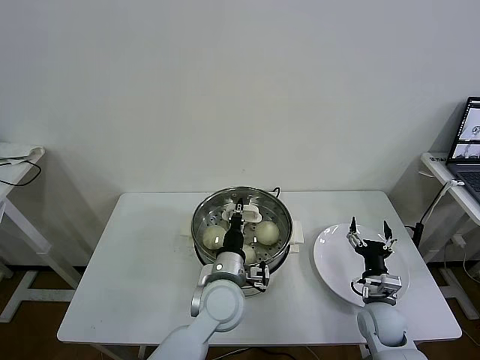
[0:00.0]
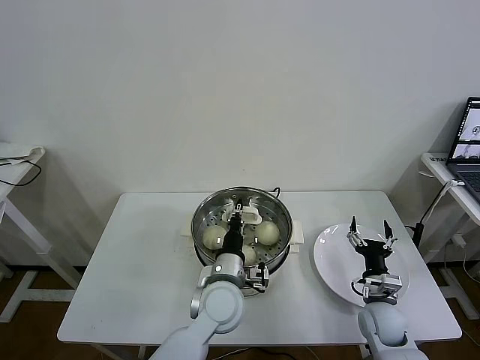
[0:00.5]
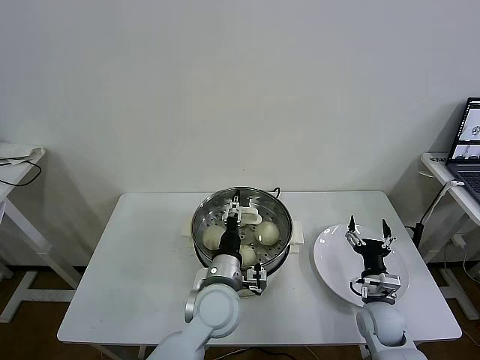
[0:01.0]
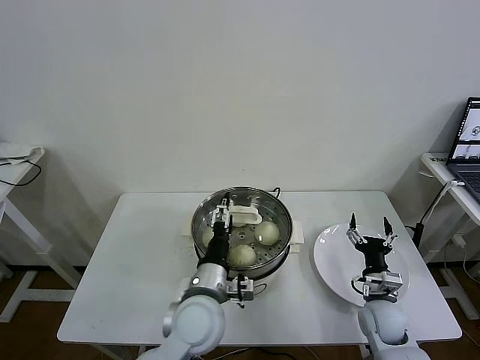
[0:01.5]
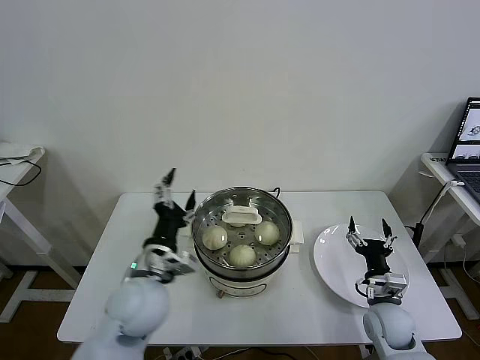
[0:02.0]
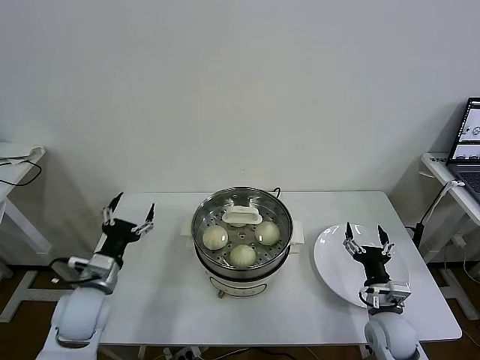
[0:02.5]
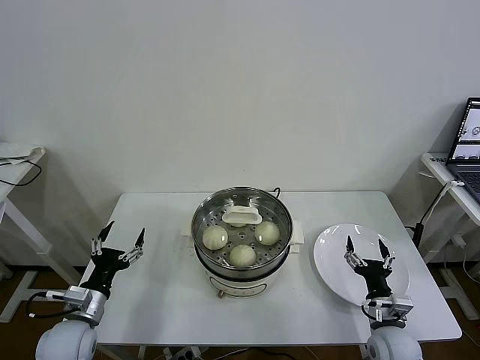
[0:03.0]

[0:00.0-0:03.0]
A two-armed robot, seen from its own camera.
Task of the whole recording: take steamed baozi put them in steamer then cover it.
0:00.0 to 0:01.5: The left gripper shifts by roughly 5 cm, and opens.
0:01.5 to 0:03.0: The right gripper travels backward by some 5 cm; the left gripper travels to the left by roughly 25 cm.
